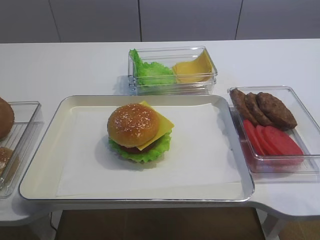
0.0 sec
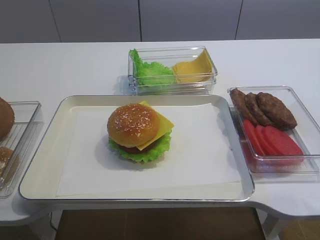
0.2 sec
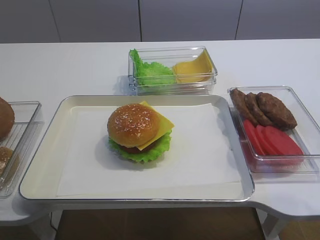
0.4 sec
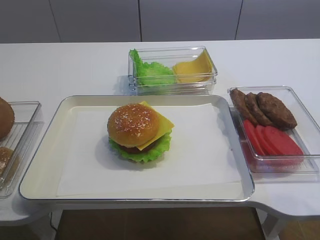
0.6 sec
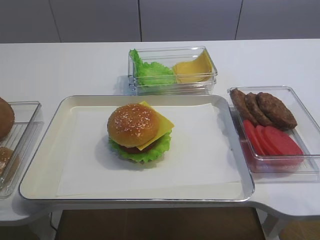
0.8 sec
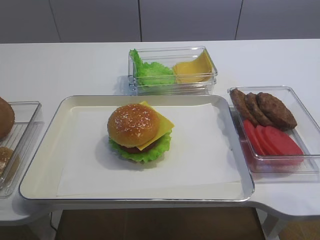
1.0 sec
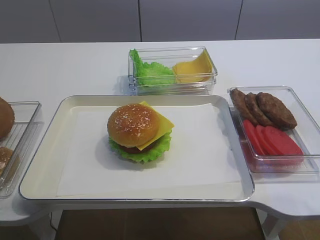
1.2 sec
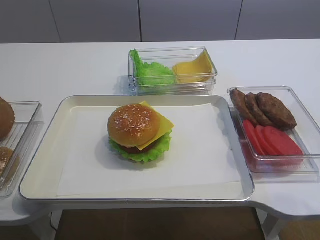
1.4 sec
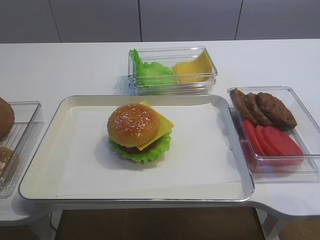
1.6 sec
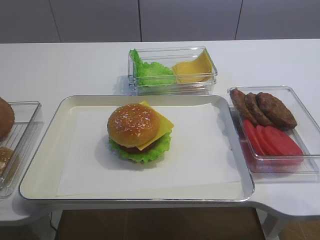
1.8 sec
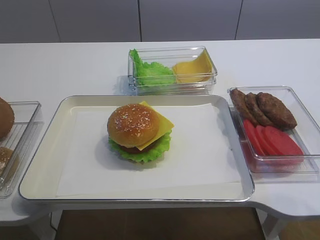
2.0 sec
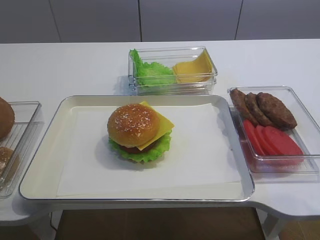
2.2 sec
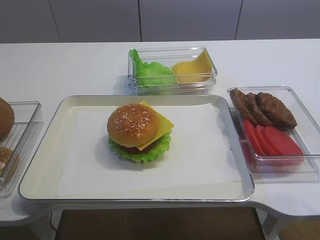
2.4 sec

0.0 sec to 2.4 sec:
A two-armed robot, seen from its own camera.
1.2 sec to 2.4 sec: The two grippers keep their place.

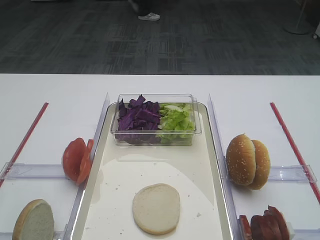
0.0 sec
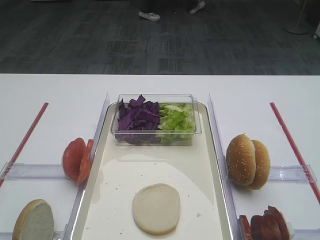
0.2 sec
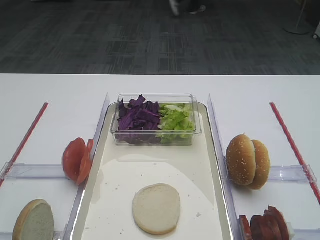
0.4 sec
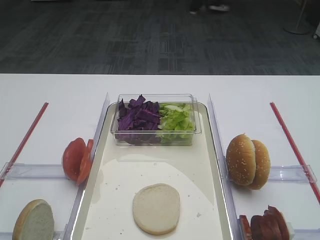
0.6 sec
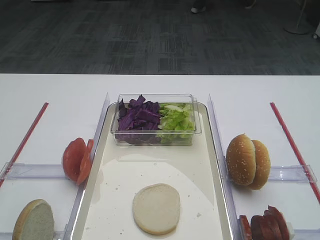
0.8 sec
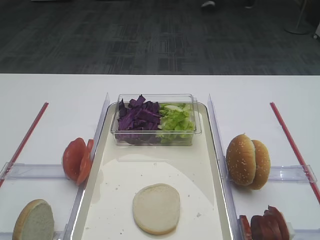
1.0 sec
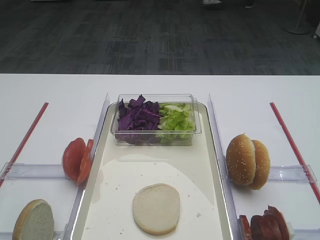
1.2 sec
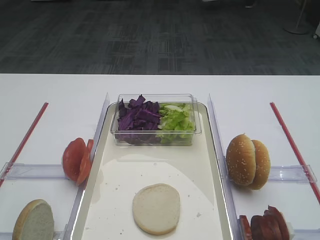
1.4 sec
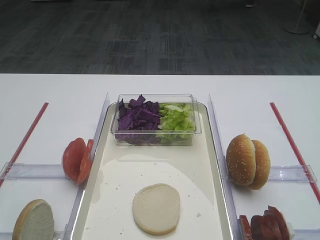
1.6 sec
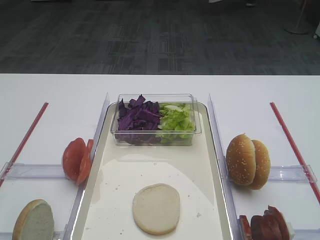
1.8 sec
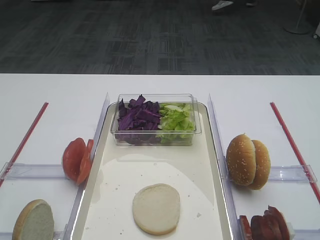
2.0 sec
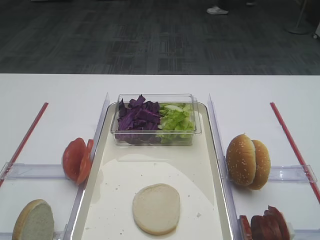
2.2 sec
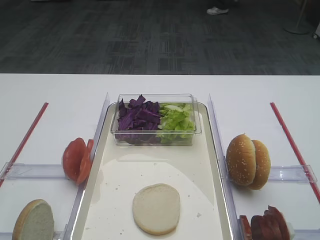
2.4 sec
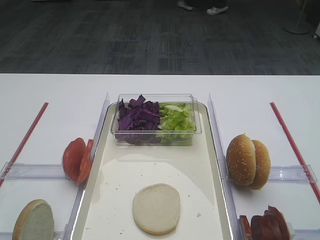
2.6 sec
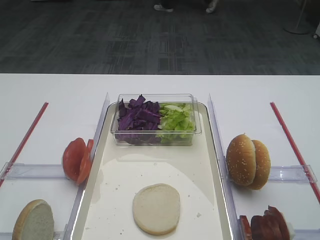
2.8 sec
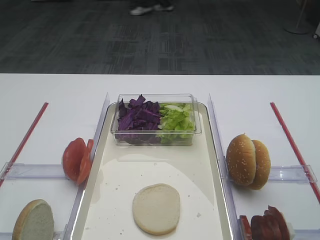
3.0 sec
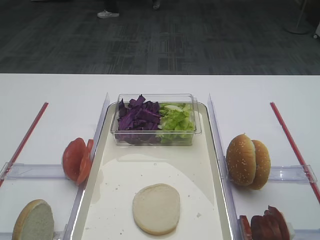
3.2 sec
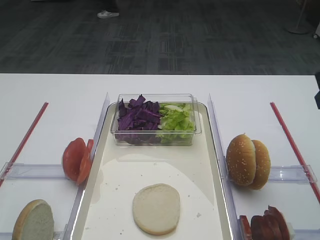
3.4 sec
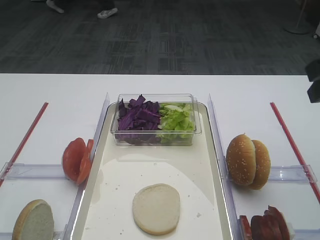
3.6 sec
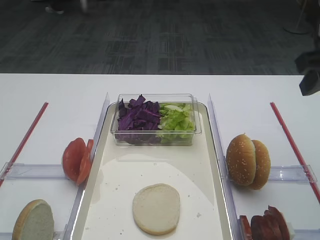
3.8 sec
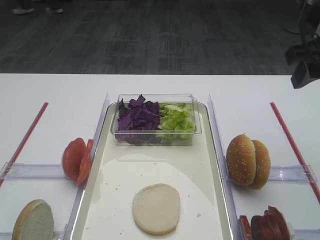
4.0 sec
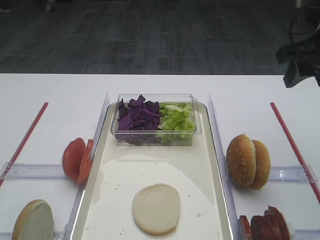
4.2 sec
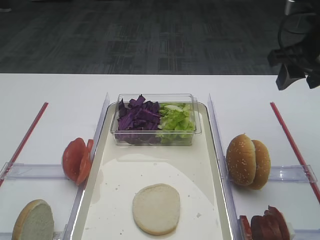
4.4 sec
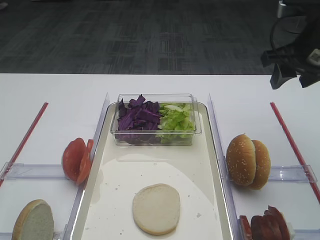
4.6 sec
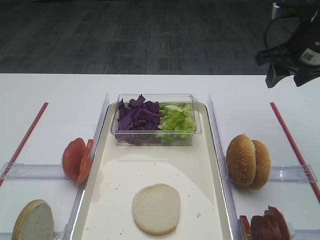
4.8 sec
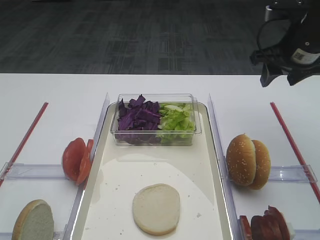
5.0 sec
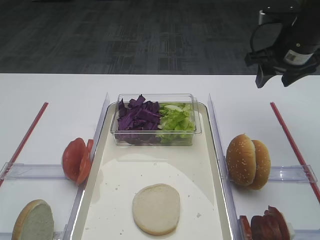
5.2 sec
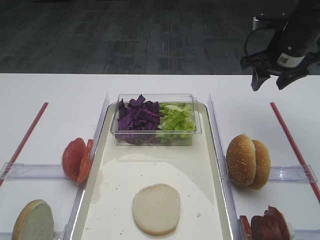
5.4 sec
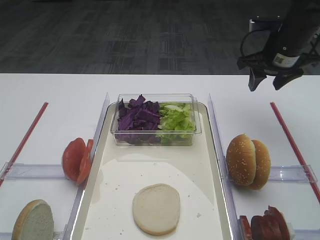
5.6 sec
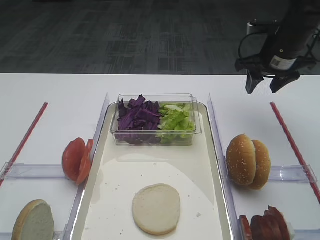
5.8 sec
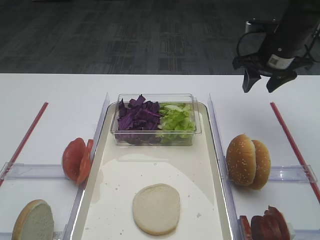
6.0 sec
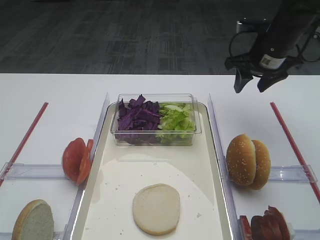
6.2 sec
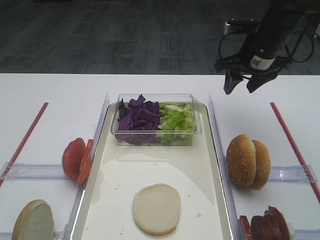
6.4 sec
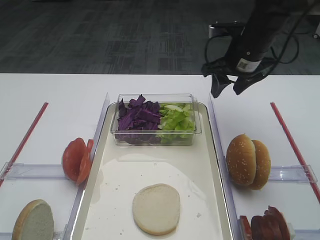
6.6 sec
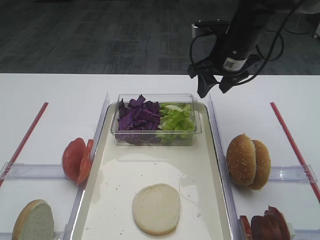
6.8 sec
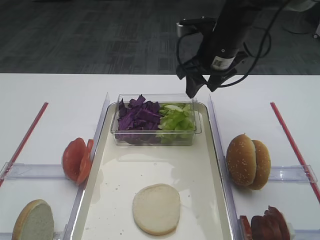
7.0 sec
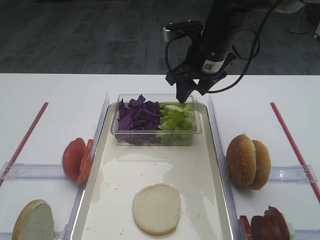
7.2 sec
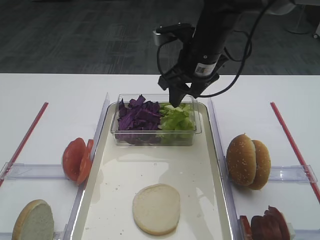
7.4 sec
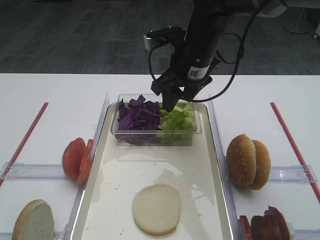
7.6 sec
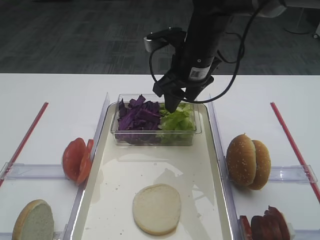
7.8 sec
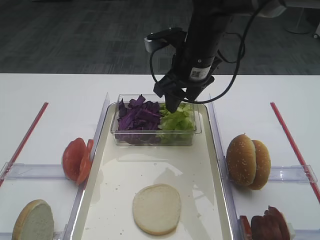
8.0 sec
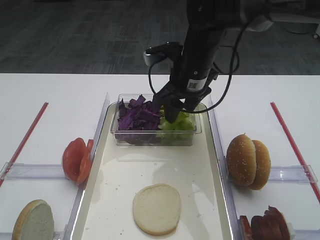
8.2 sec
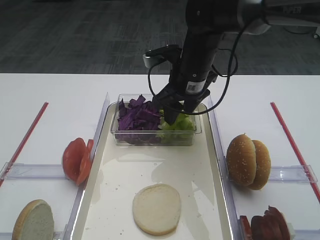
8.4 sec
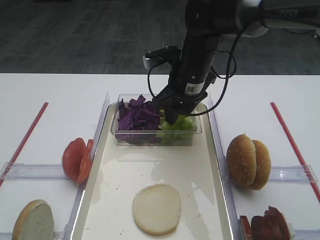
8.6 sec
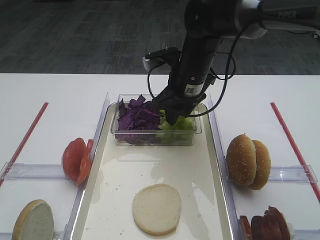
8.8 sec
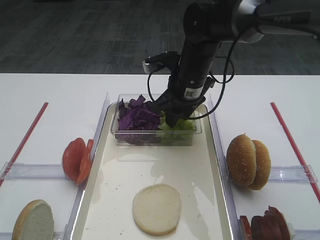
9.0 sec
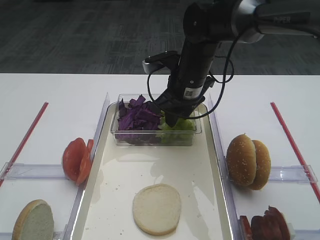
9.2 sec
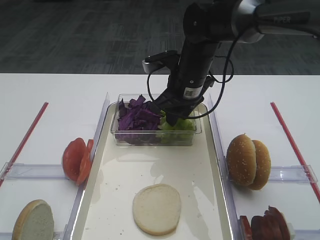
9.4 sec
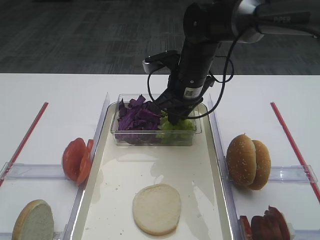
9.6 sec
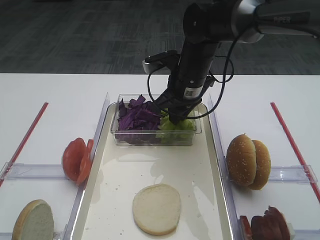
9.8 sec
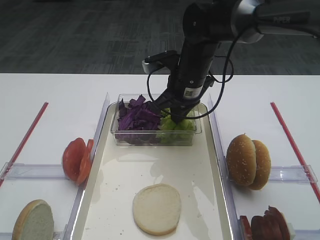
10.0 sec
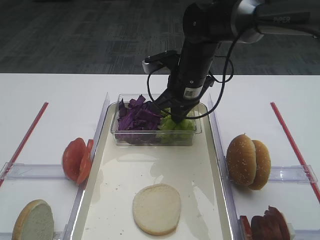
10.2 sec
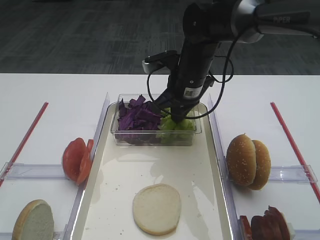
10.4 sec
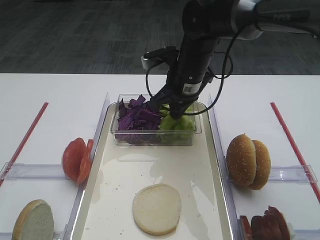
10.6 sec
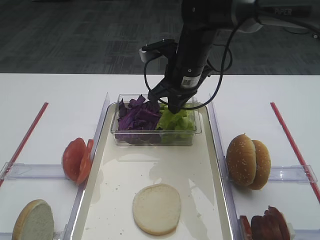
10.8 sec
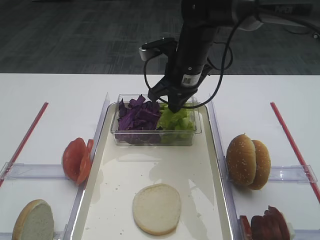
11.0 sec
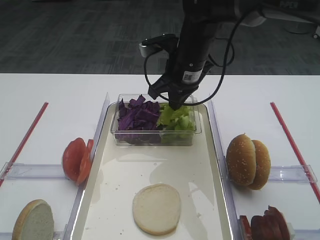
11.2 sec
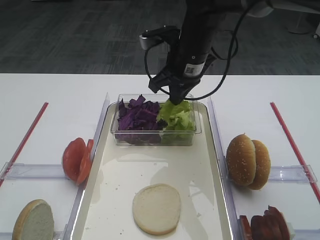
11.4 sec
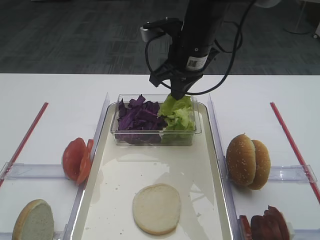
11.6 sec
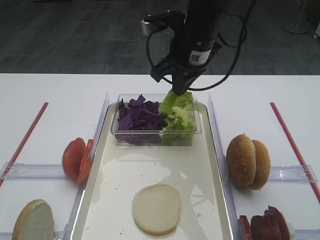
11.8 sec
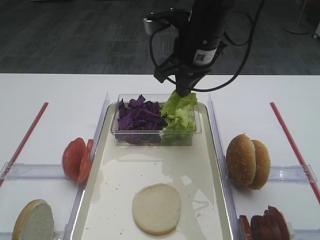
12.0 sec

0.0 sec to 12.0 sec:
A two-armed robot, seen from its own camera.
3.0 sec to 4.4 sec: The right gripper goes roughly 15 cm forward.
4.4 sec to 6.0 sec: The right gripper is displaced forward and downward by roughly 15 cm.
6.0 sec to 7.6 sec: The right gripper moves to the left, roughly 15 cm.
7.6 sec to 9.0 sec: The right gripper is displaced downward by about 5 cm.
9.0 sec to 10.4 sec: The right gripper closes.
10.4 sec to 12.0 sec: The right gripper heads upward, covering roughly 10 cm.

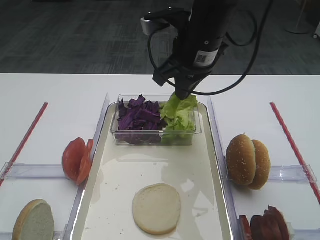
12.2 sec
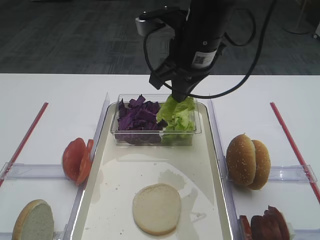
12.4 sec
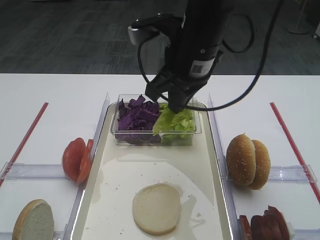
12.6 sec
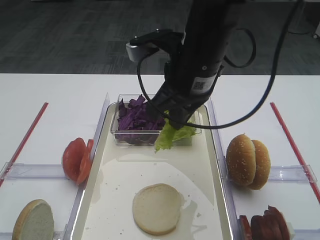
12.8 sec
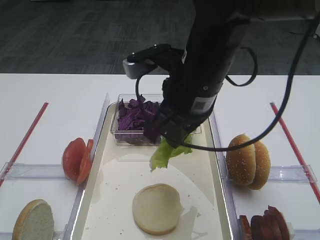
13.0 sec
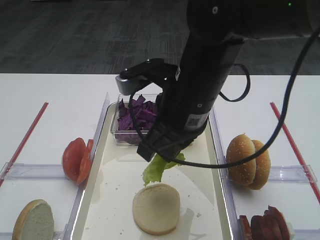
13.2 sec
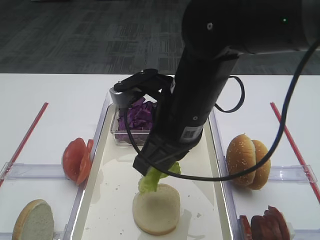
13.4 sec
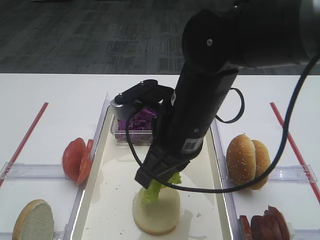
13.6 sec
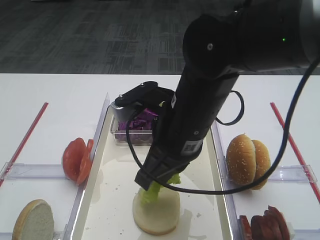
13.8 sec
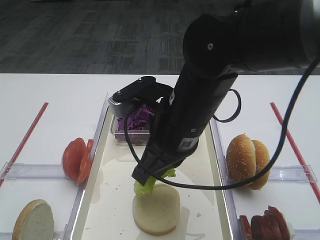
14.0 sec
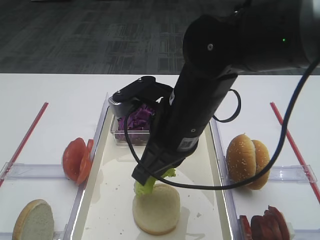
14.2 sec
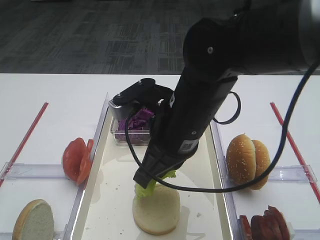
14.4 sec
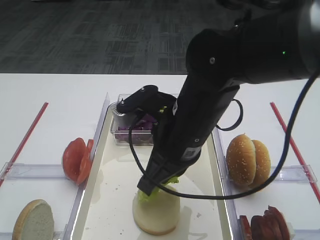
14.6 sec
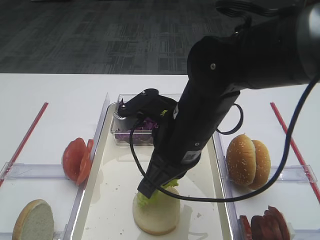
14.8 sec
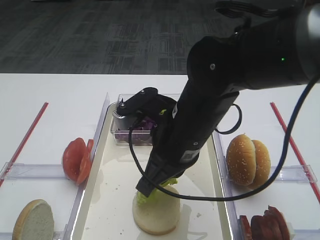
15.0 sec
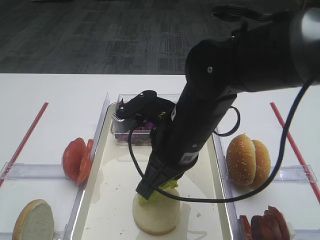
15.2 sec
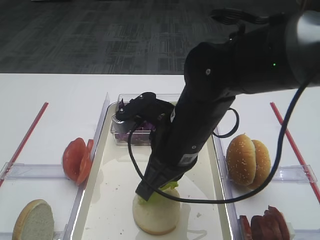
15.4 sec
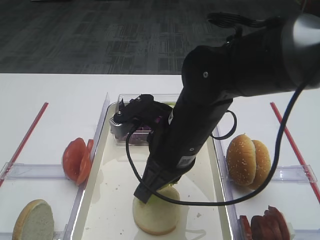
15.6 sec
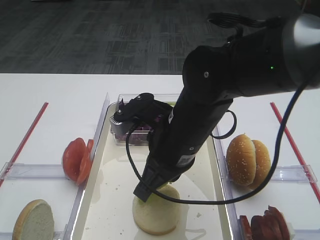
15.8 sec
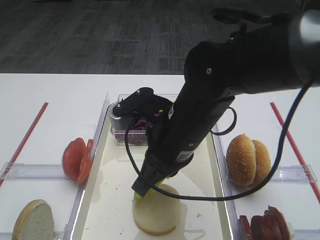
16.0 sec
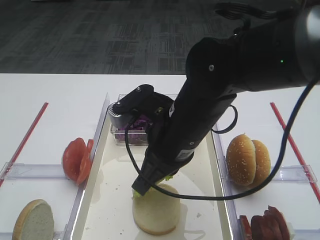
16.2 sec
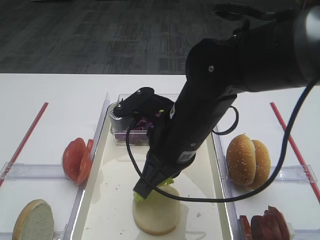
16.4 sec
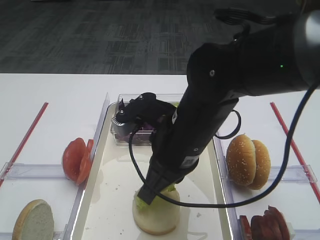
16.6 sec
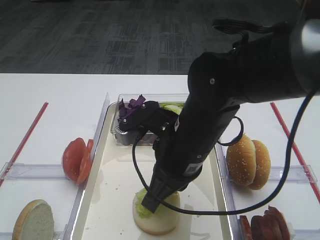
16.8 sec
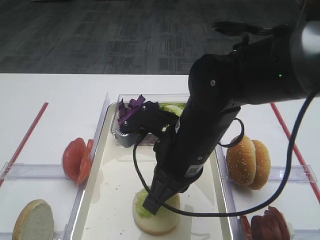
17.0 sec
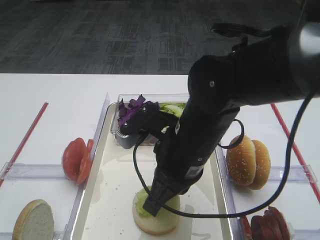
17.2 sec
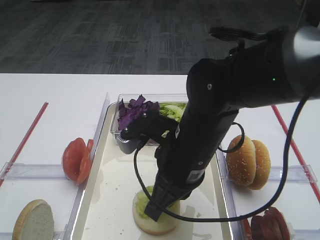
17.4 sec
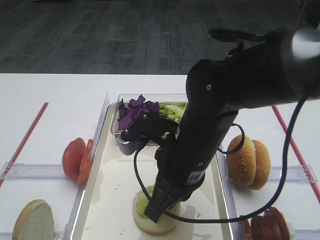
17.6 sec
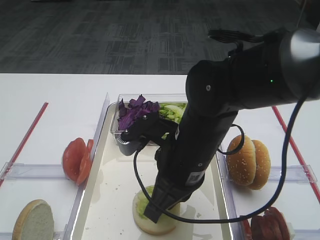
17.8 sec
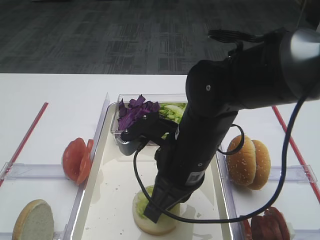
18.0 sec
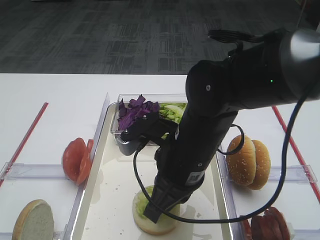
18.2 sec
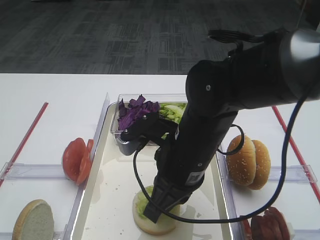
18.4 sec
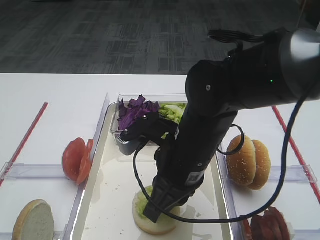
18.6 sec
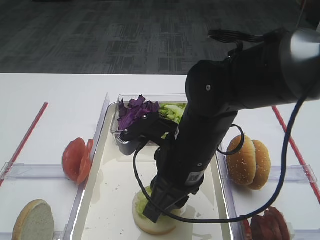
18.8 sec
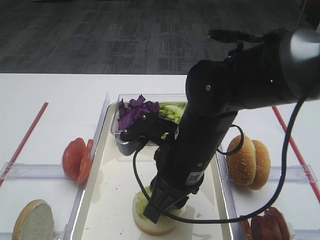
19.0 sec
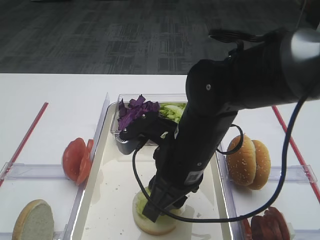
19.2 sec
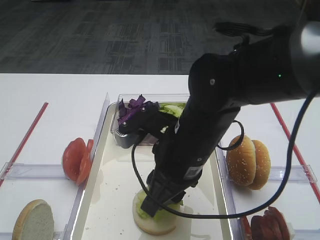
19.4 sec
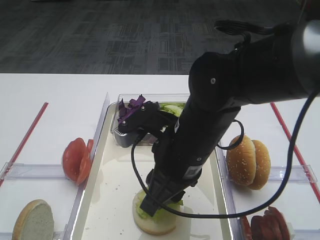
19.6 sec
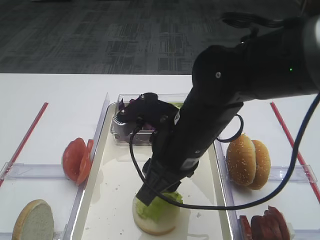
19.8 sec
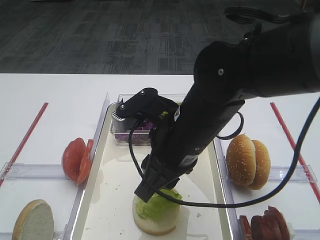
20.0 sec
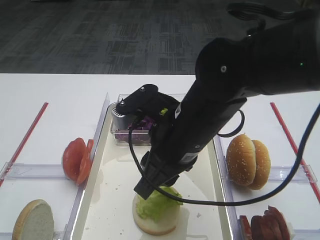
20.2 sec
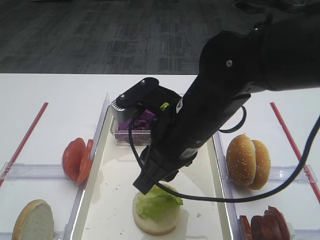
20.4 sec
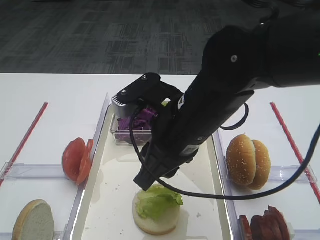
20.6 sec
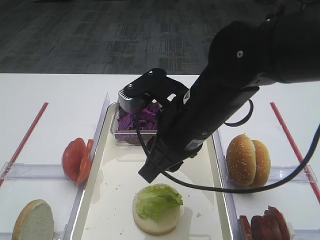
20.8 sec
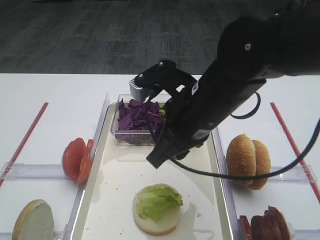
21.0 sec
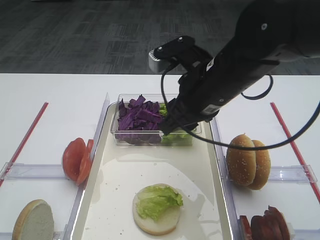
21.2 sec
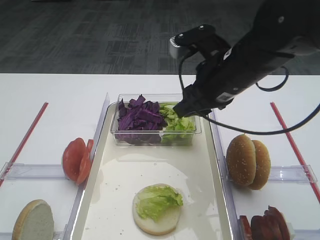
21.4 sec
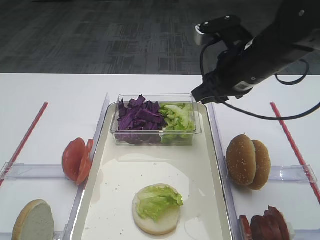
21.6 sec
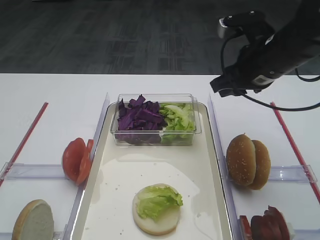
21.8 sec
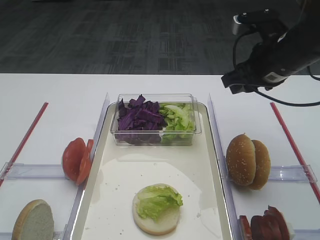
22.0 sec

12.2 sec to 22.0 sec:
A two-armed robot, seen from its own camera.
Step, 12.4 sec to 21.0 sec: Place the lettuce leaf on the bread slice with the right gripper.
12.2 sec to 13.6 sec: The right gripper goes about 15 cm backward and downward.
13.6 sec to 15.0 sec: The grippers stay close to where they were, moving slightly.
15.0 sec to 16.4 sec: Both grippers stay put.
16.4 sec to 17.8 sec: The grippers stay close to where they were, moving slightly.
17.8 sec to 19.2 sec: The right gripper opens.
19.2 sec to 20.6 sec: There are only small adjustments of the grippers.
20.6 sec to 22.0 sec: The right gripper travels to the right and forward by approximately 20 cm.
